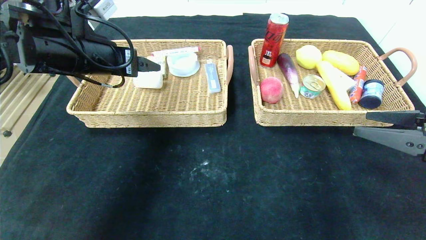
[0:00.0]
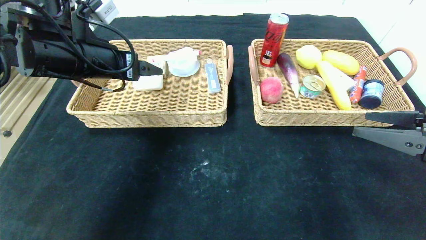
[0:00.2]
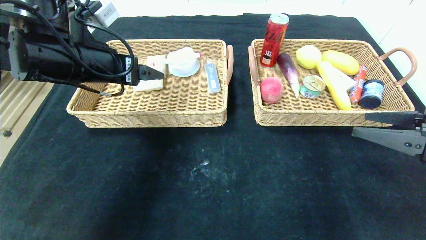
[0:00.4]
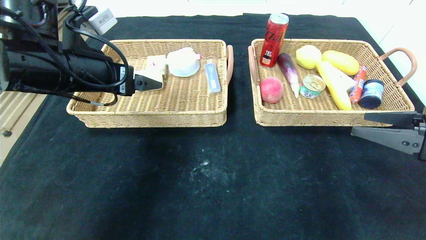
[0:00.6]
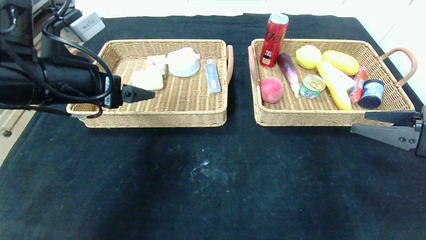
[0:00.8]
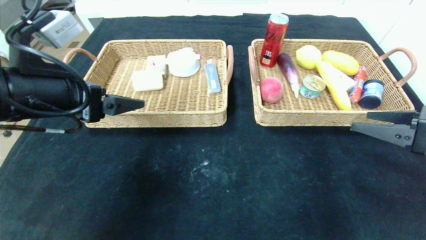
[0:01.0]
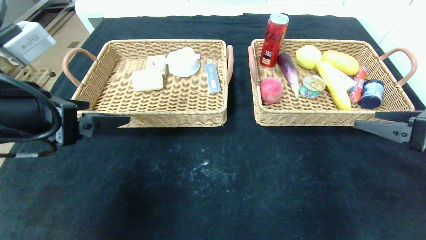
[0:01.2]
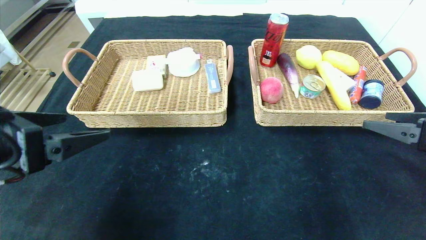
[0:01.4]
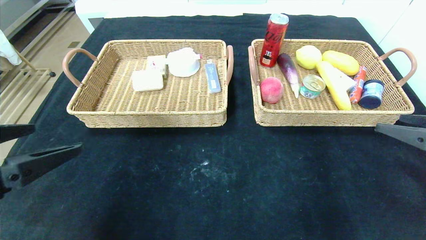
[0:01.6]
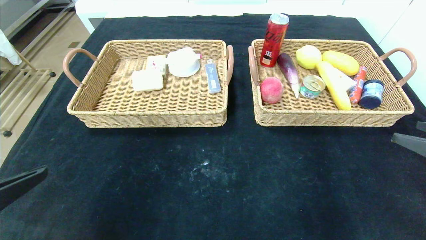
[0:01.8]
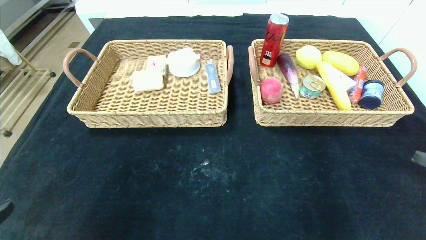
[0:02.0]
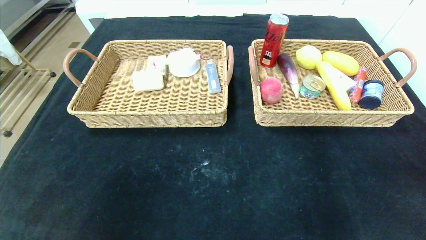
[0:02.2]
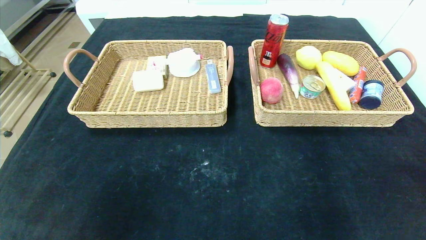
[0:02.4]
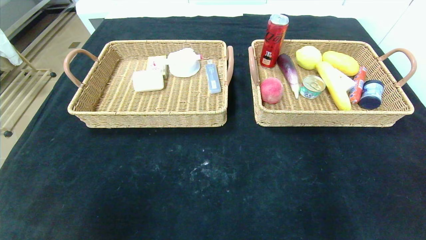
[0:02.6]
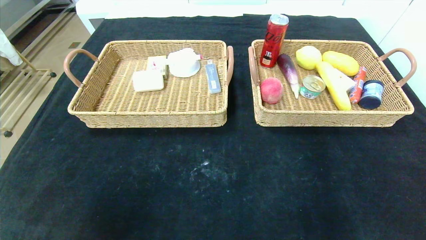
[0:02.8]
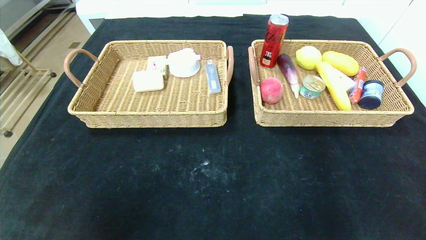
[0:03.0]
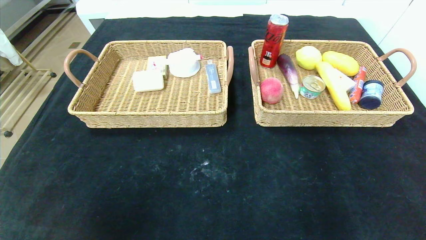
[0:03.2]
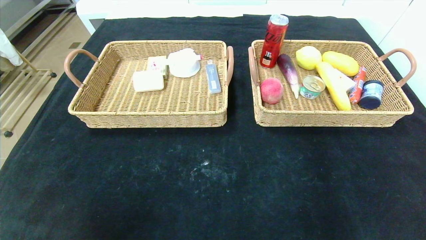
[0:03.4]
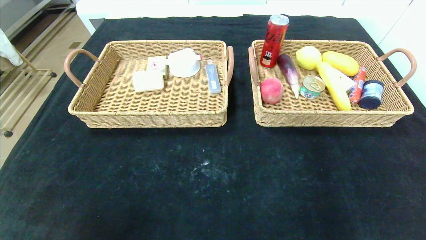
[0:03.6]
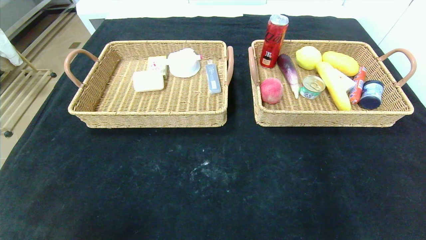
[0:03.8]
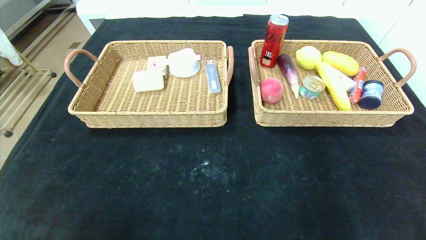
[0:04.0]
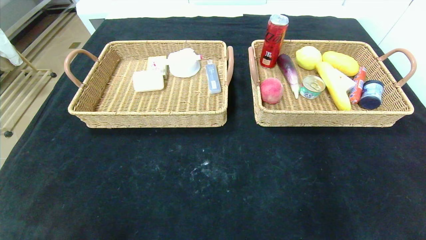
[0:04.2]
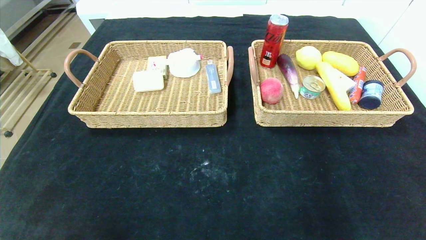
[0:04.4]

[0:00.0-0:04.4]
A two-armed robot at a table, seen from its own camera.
0:00.0 to 0:01.4: The left gripper travels backward by approximately 20 cm.
0:01.4 to 0:03.0: The left gripper goes about 20 cm backward and downward; the right gripper moves backward, approximately 25 cm.
